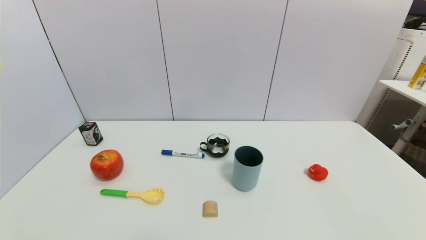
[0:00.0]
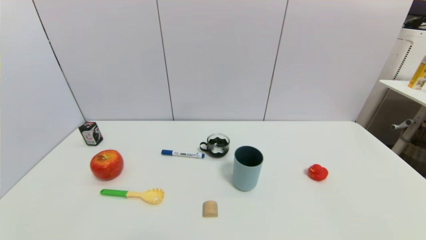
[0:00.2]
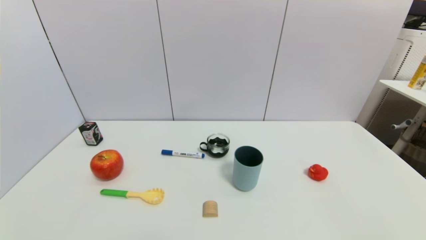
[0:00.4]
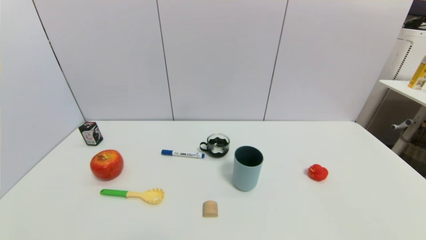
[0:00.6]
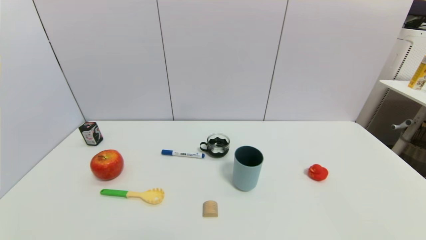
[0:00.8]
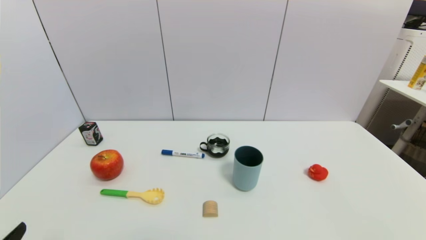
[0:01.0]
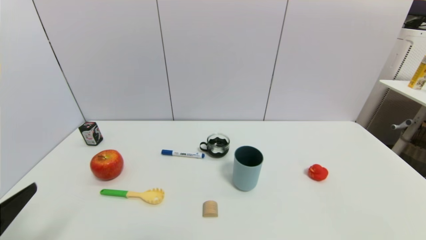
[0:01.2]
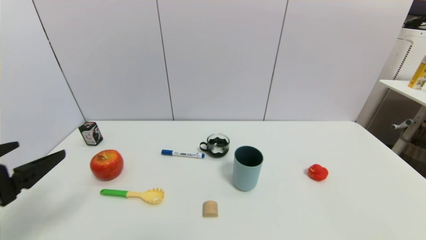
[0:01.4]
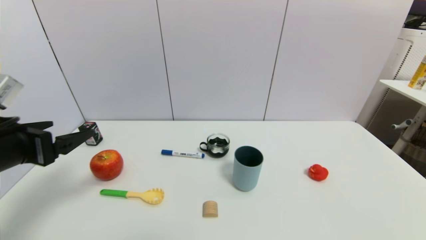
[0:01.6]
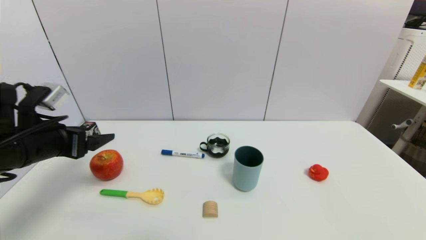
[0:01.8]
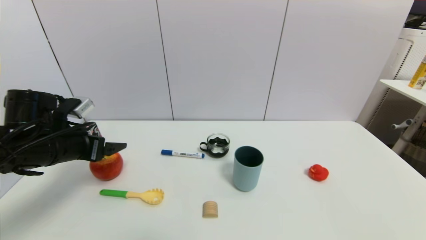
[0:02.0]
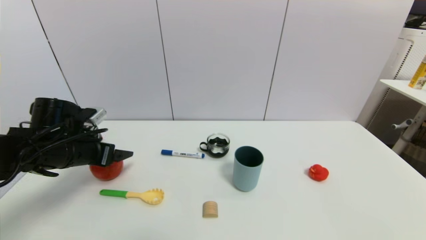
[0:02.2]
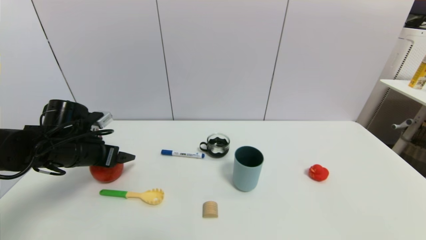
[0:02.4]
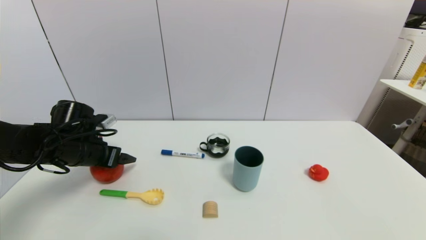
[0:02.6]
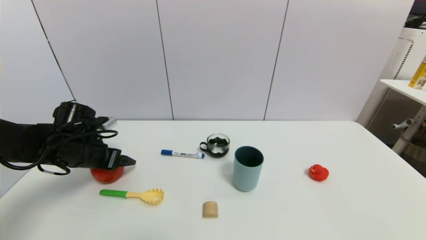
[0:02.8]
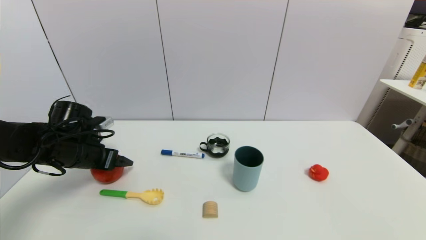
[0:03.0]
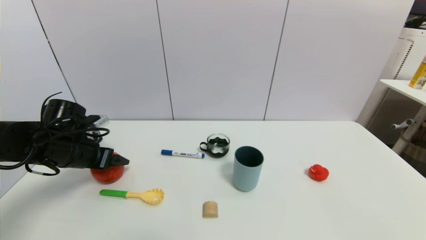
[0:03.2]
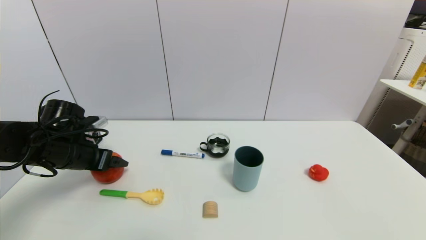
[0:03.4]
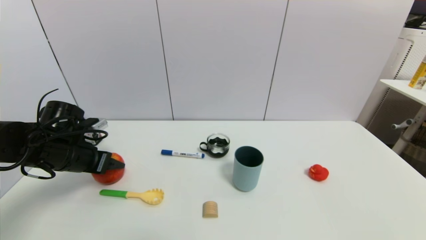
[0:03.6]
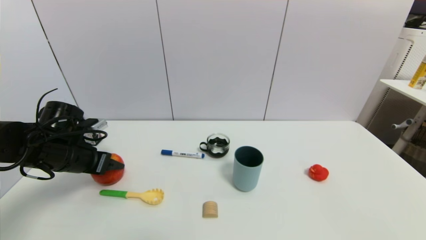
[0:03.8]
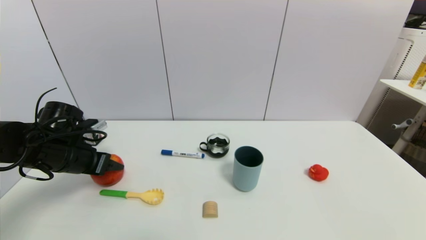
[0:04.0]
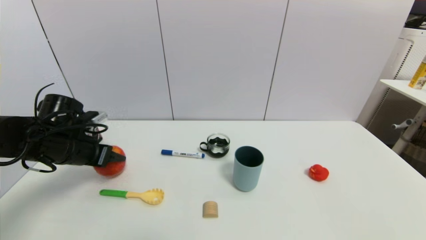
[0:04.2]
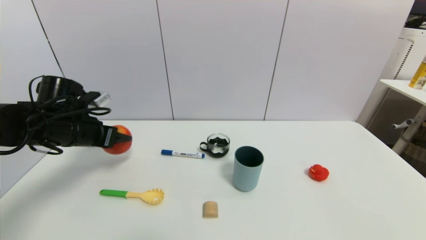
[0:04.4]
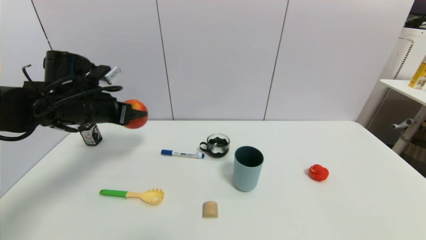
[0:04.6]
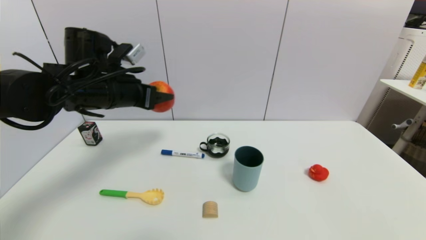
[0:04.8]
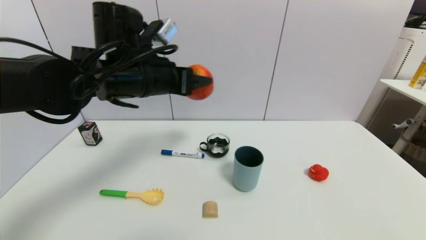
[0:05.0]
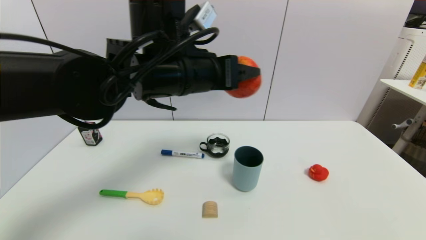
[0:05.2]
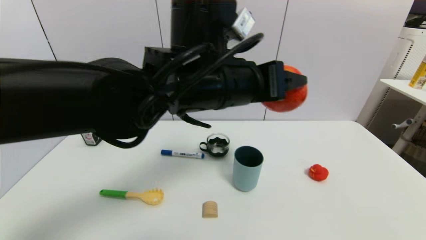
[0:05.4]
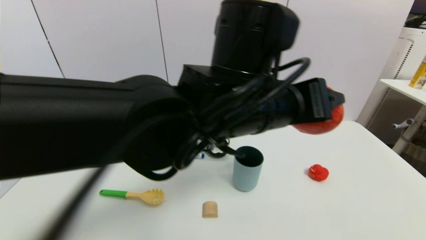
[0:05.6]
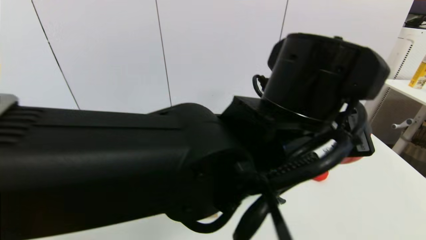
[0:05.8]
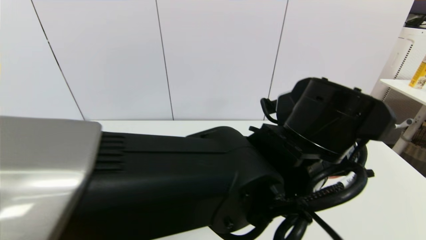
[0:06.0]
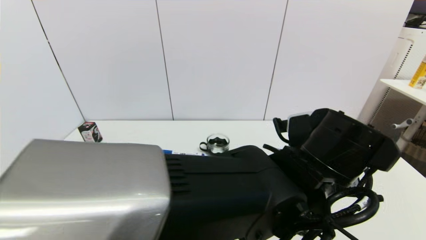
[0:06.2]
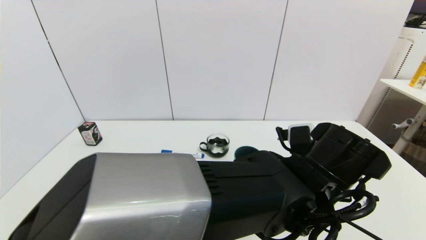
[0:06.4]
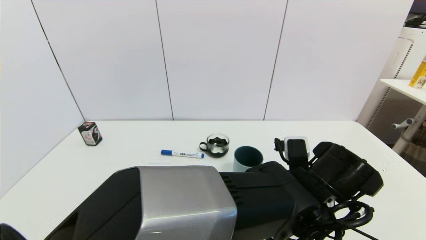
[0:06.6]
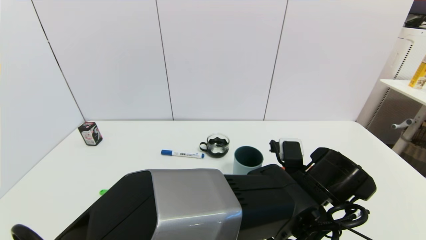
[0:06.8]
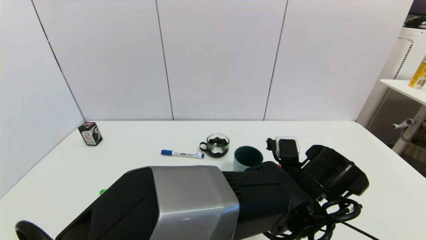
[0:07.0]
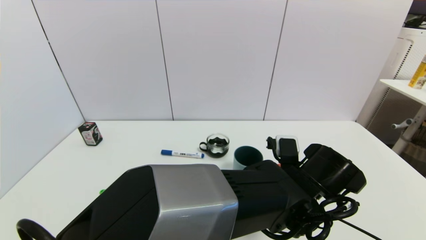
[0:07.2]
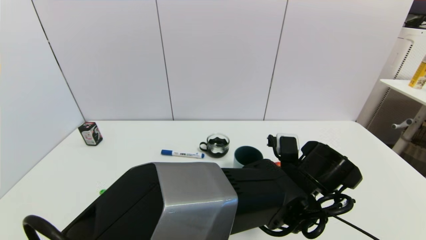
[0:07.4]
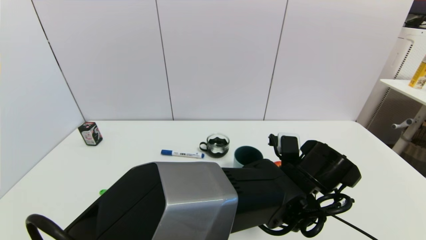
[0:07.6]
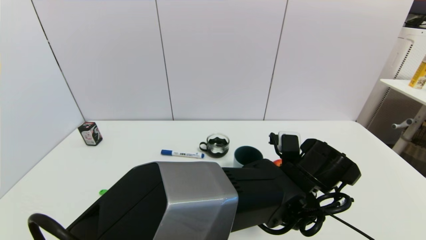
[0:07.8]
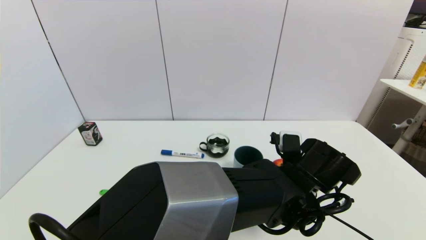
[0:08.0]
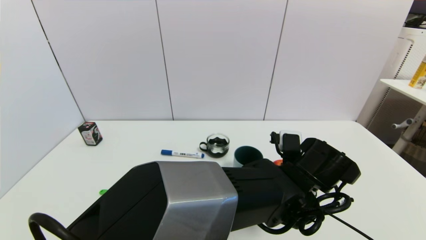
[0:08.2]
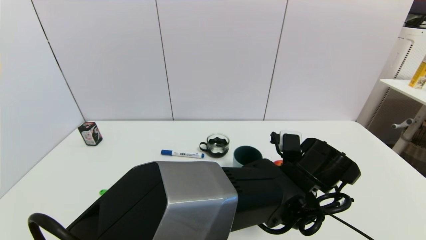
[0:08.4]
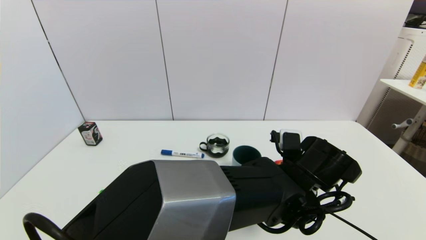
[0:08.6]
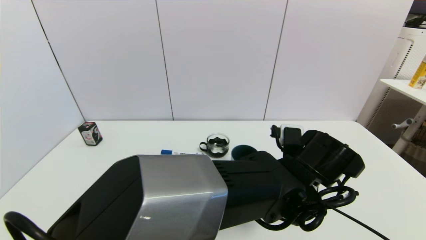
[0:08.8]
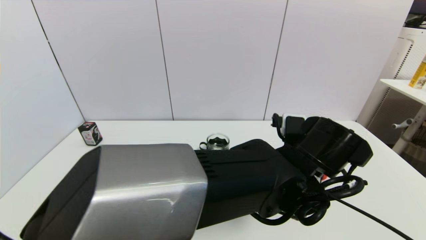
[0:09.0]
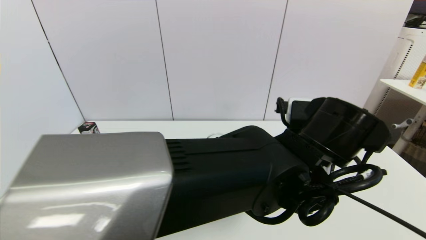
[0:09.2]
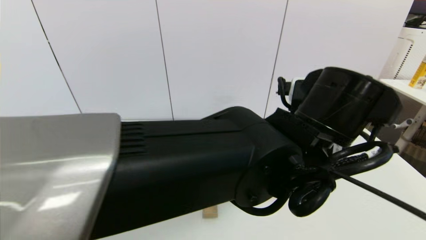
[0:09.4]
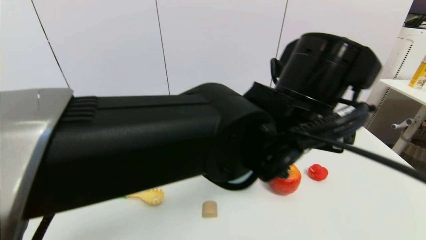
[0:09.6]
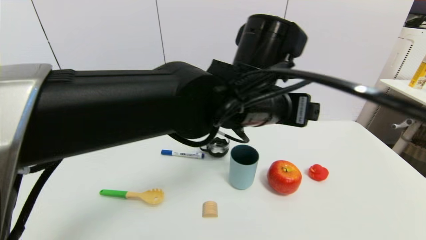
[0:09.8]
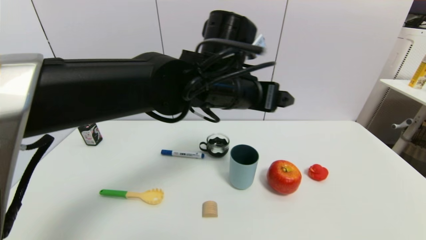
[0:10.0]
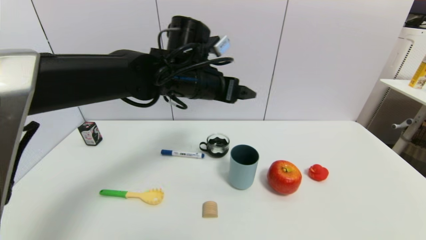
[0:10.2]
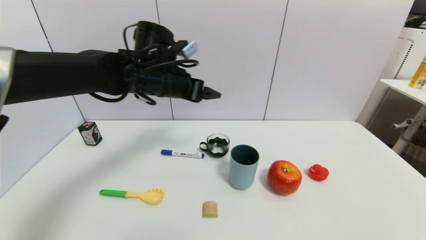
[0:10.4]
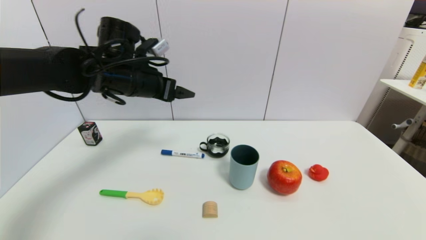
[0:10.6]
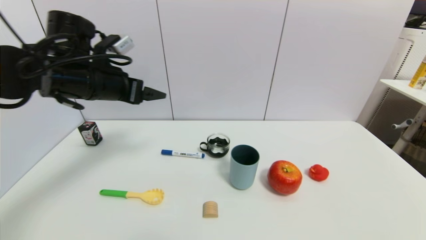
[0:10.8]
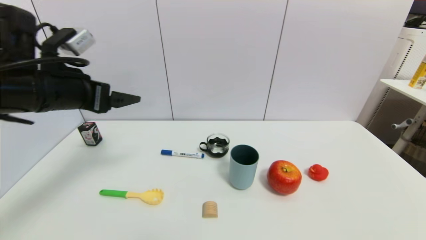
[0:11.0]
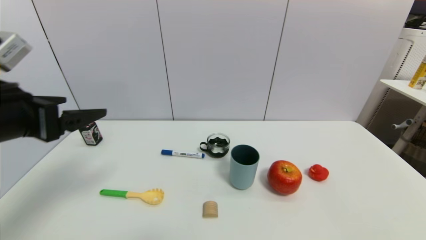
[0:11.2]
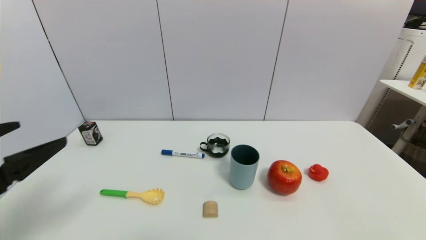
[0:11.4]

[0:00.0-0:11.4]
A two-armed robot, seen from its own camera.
Task of the whole recording: put the apple in the designated position.
Step, 0:01.0 to 0:03.6: Grasp the apple with left gripper.
Step, 0:04.0 to 0:09.2: Place the apple on the table with left gripper.
0:00.0 to 0:01.4: The left gripper is displaced upward and forward by approximately 20 cm.
0:01.4 to 0:02.8: The left gripper goes some 20 cm forward and downward.
0:02.8 to 0:04.2: The left gripper closes up.
0:04.2 to 0:05.6: The left gripper heads to the right, covering approximately 35 cm.
0:05.6 to 0:07.2: The left gripper is displaced downward and to the right by roughly 20 cm.
0:07.2 to 0:08.6: The left gripper opens its fingers.
0:08.6 to 0:10.0: The left gripper heads upward, to the left and forward, covering roughly 20 cm.
0:10.0 to 0:11.4: The left gripper moves to the left and backward, approximately 35 cm.

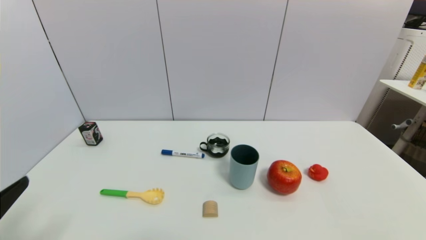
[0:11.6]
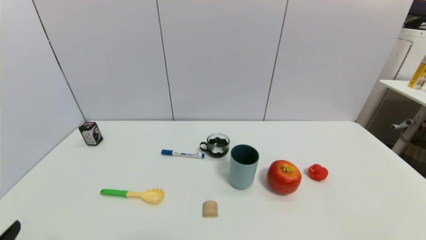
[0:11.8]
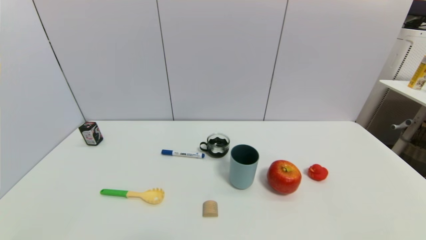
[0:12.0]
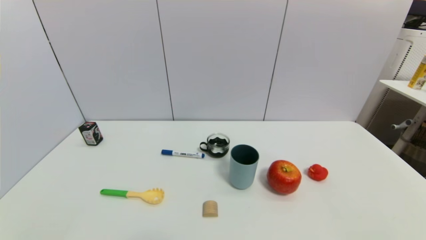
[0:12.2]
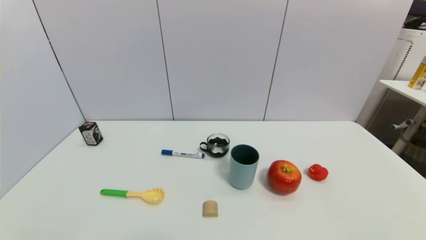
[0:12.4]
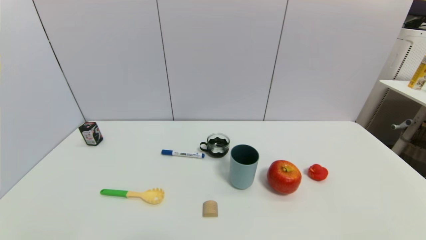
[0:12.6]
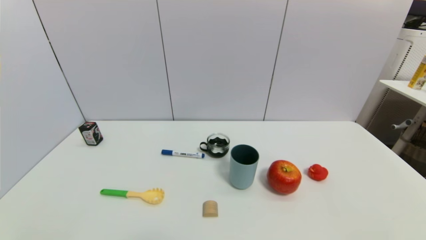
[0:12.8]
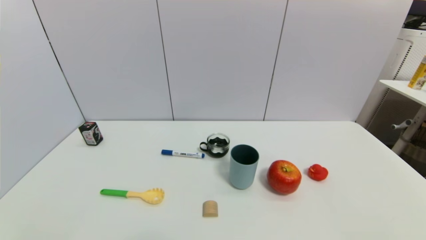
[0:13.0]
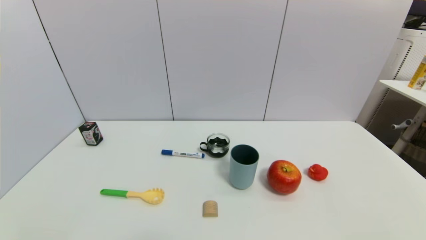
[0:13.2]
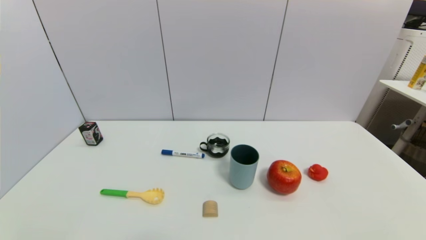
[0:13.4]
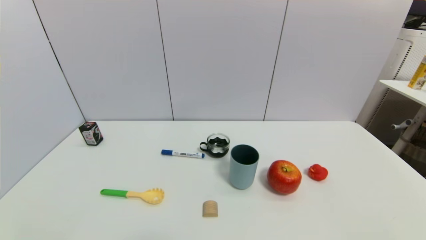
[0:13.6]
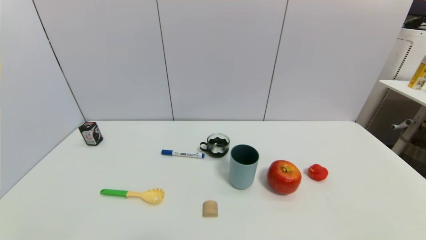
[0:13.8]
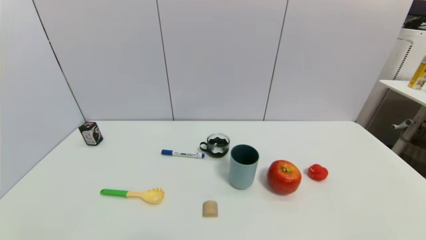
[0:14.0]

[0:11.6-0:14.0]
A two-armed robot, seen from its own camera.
Task of the whole recording: put the apple in the designated position.
0:11.6 to 0:12.8: The left gripper shifts about 15 cm downward.
0:12.8 to 0:14.0: The two grippers keep their place.
